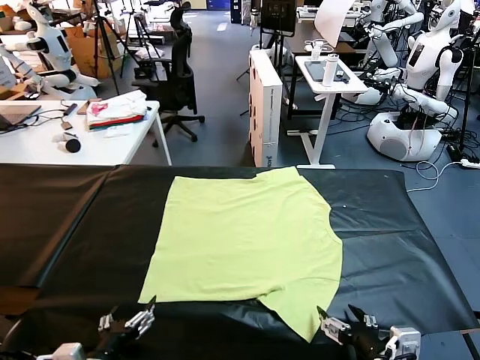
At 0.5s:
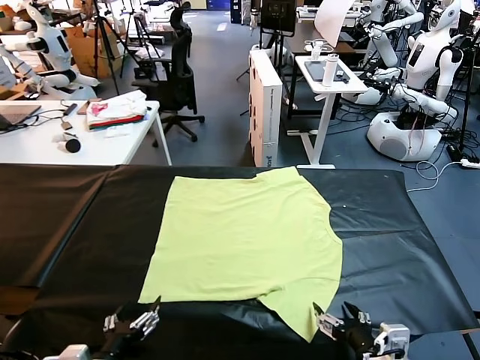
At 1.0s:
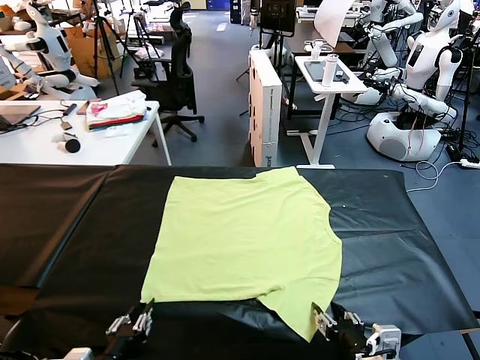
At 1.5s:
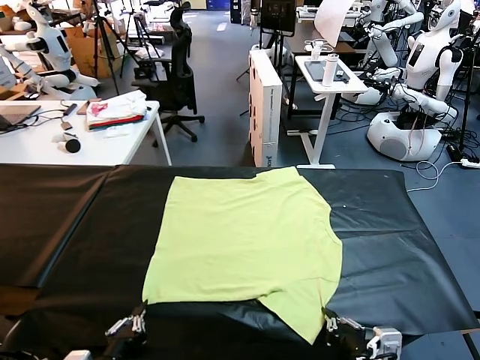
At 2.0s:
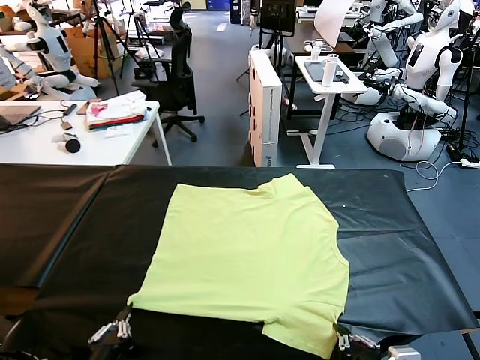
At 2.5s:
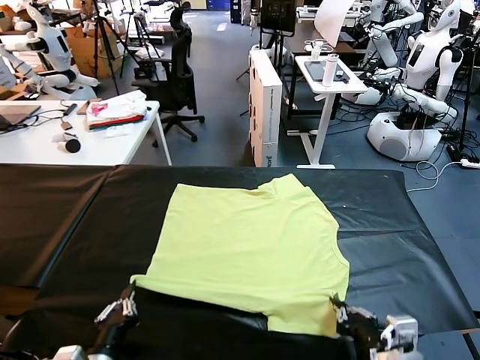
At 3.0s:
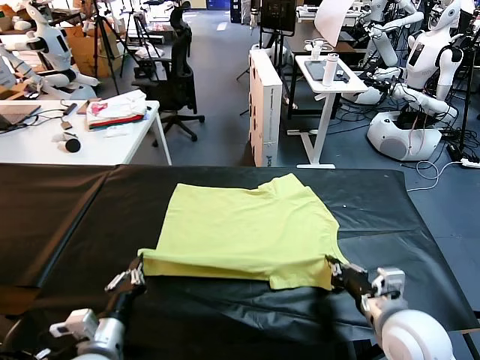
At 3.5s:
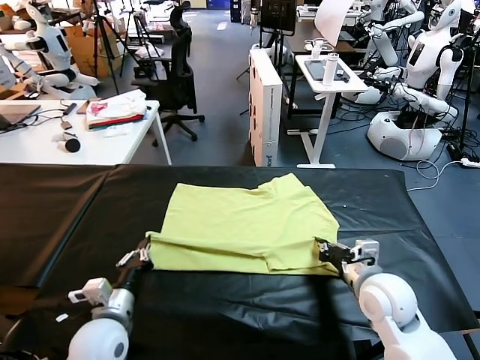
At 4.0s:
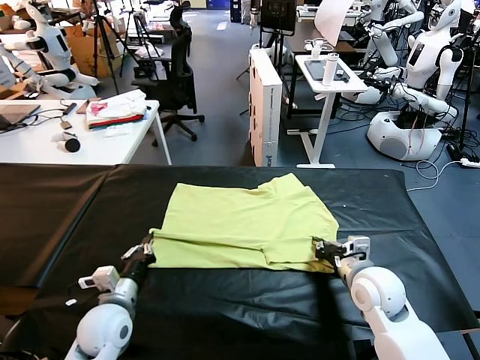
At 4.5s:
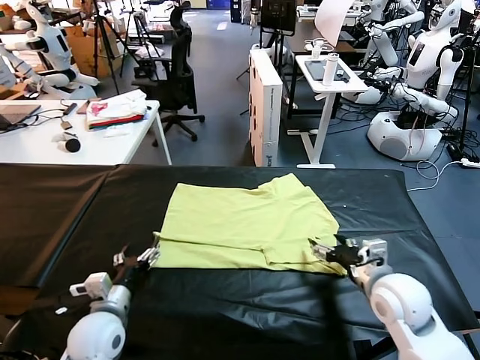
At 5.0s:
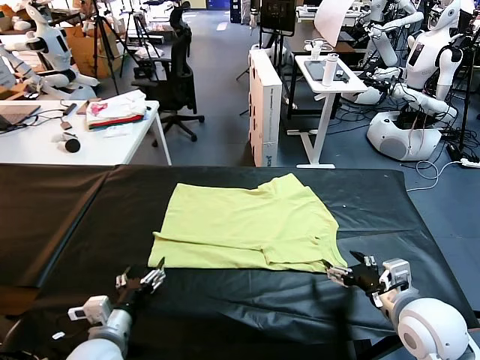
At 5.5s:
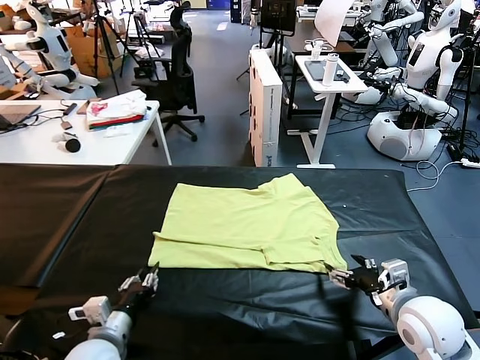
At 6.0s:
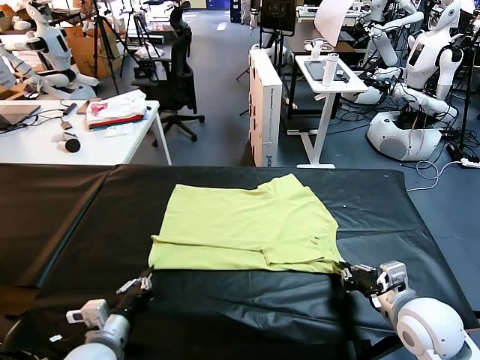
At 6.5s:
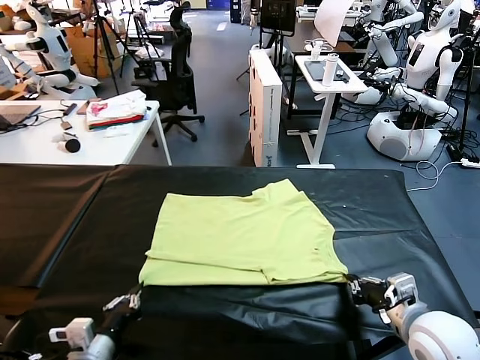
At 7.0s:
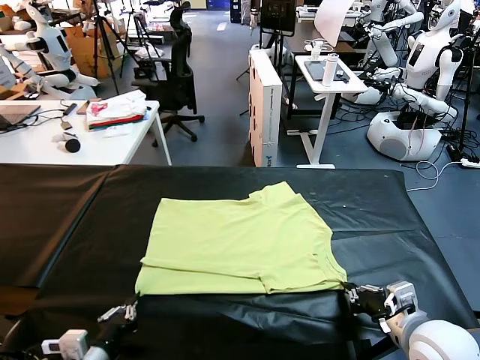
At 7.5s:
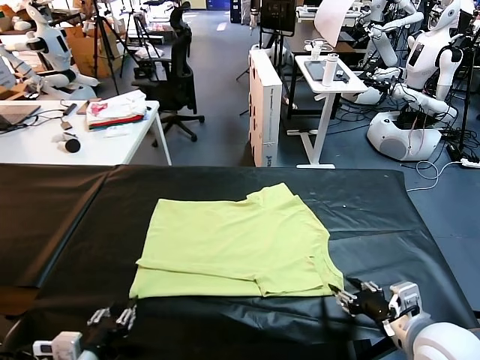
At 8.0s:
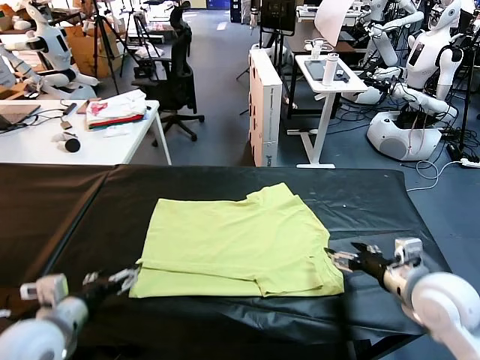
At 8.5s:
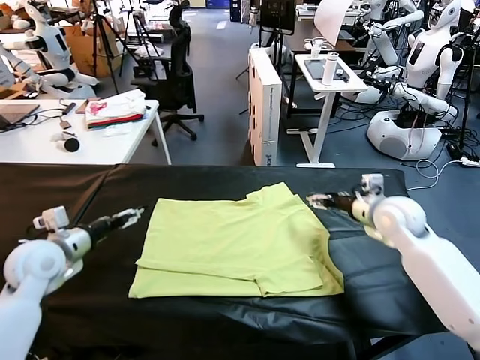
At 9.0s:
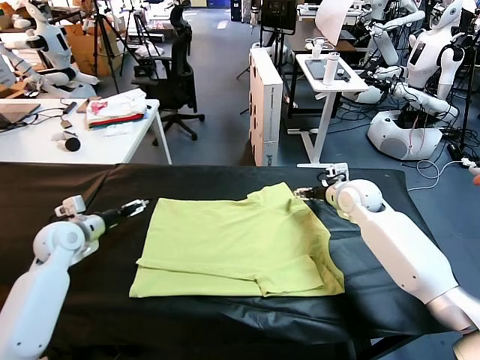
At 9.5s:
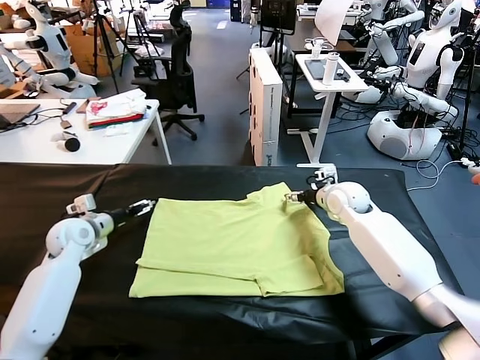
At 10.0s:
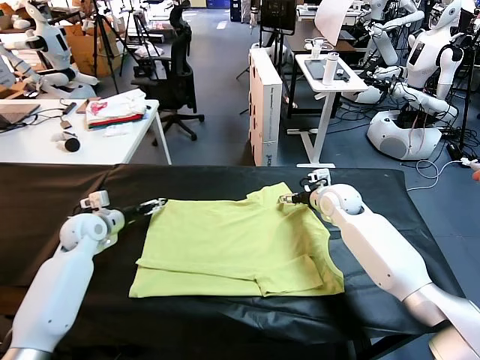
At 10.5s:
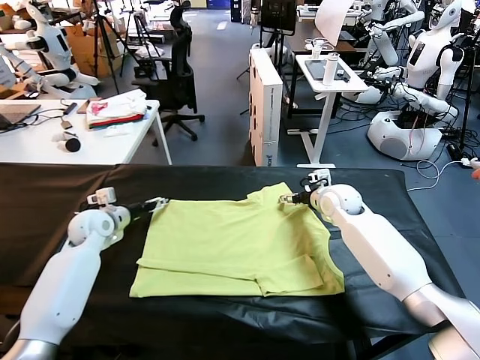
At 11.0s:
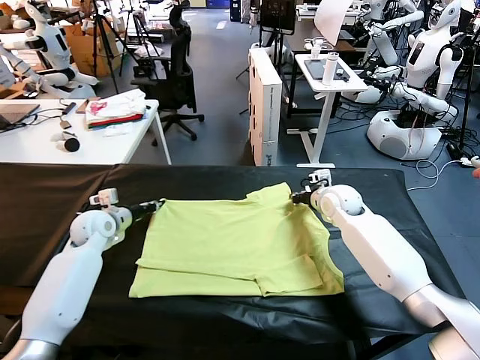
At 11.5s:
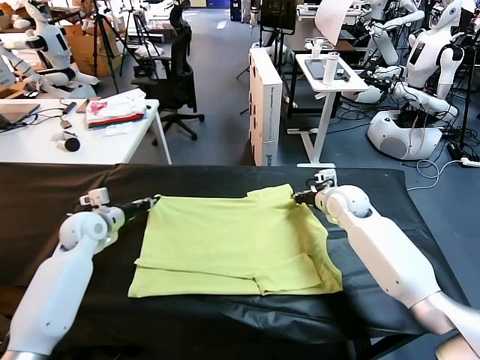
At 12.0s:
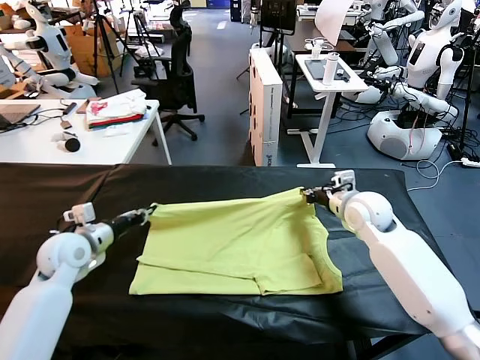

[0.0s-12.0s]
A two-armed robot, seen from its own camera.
Task of the whole recording: fold and organize the clothes.
Step, 0.0s to 1.5s: use both grippers simultaneously to clamp the lower edge of the clothing fabric.
Step, 2.0s to 4.0s: use both grippers to drag the lower edge of the fabric forward and fold it over the upper edge.
Step, 5.0s to 7.5s: Drag the clothes downward with both gripper.
Step, 8.0s to 11.5s: use both grippers simultaneously to clamp the upper edge of the clothing fabric.
2.0s to 4.0s: Both grippers move forward, roughly 20 cm. The right gripper opens.
4.0s to 6.0s: Both grippers move backward, roughly 10 cm. The right gripper closes its fingers. The left gripper opens and closes again.
6.0s to 8.0s: The left gripper moves upward and to the left, about 10 cm, and opens up, while the right gripper shifts about 10 cm forward, and opens its fingers.
8.0s to 10.0s: The right gripper moves forward and to the left, some 25 cm; the left gripper is displaced forward by some 25 cm.
10.0s to 12.0s: Both grippers travel together backward, roughly 10 cm. The left gripper closes up. The right gripper closes its fingers.

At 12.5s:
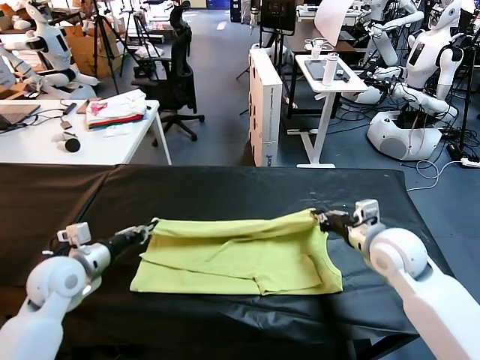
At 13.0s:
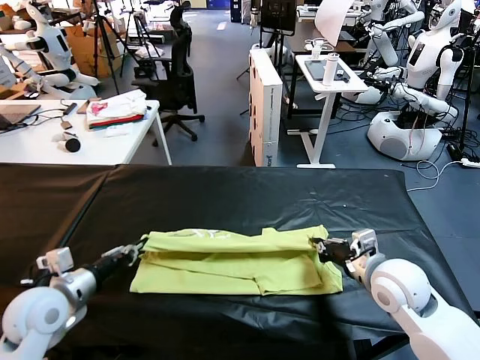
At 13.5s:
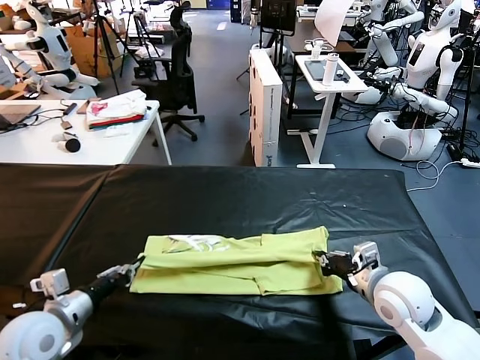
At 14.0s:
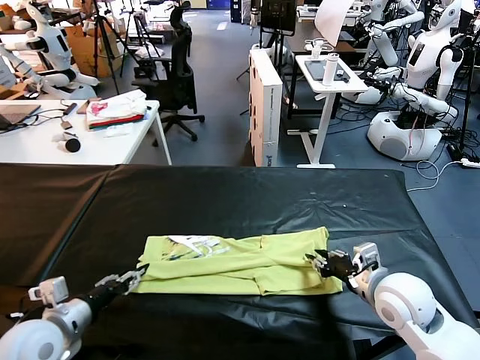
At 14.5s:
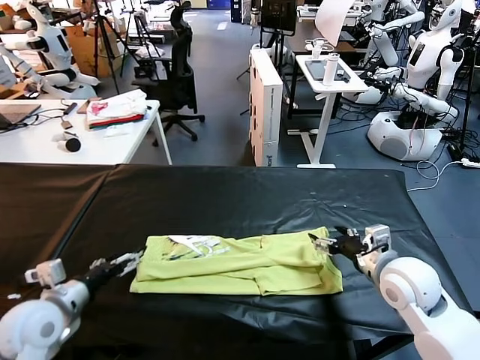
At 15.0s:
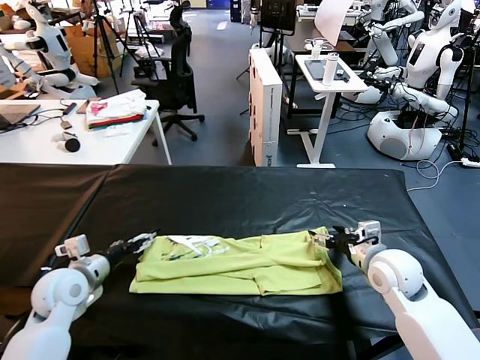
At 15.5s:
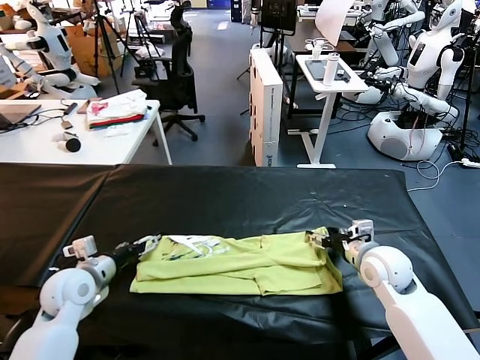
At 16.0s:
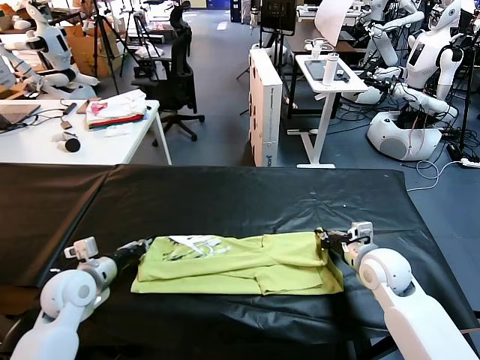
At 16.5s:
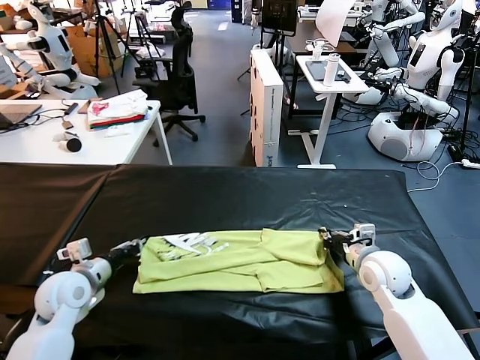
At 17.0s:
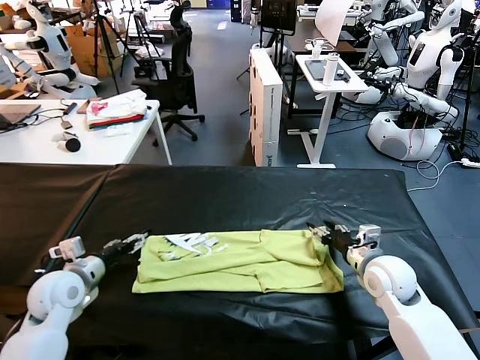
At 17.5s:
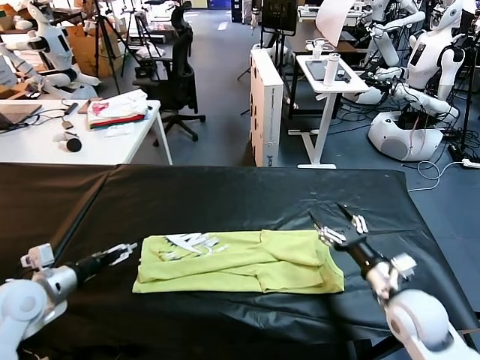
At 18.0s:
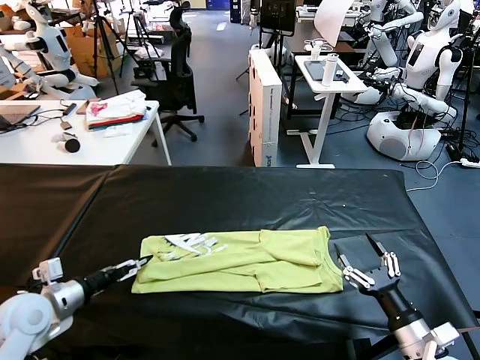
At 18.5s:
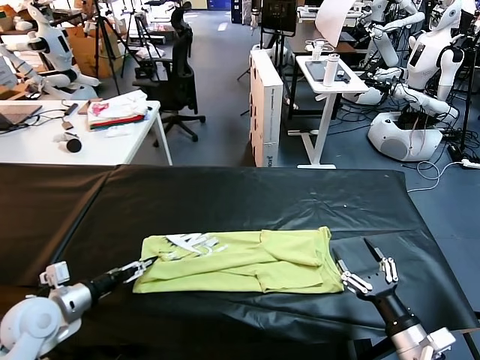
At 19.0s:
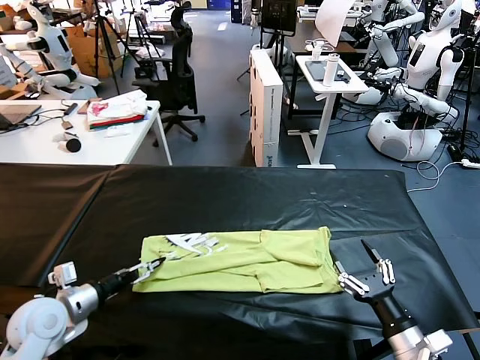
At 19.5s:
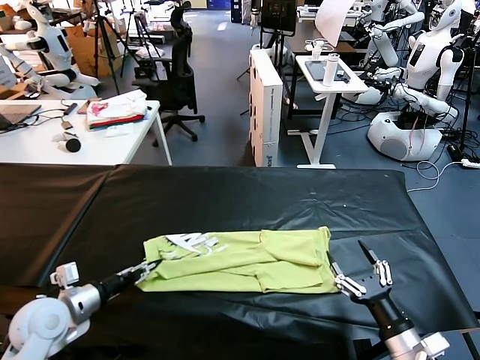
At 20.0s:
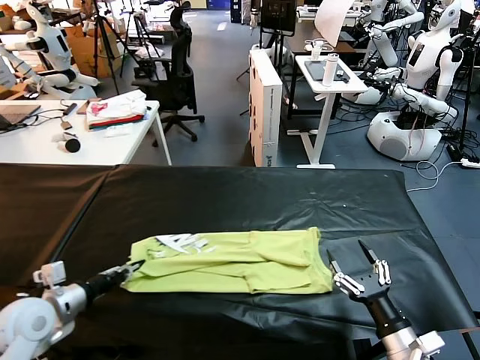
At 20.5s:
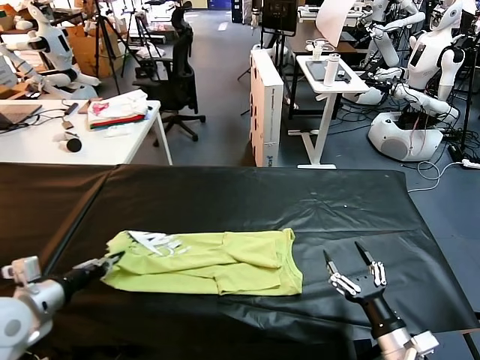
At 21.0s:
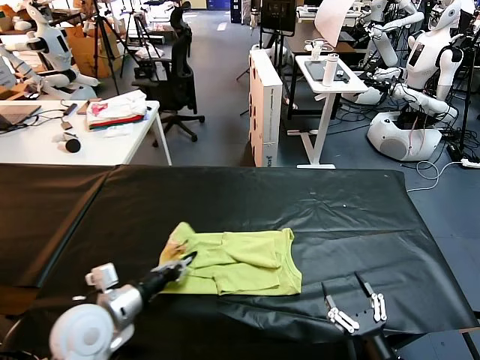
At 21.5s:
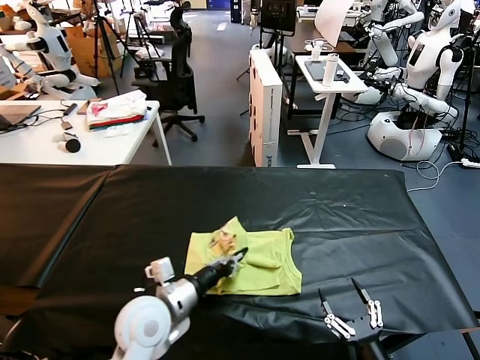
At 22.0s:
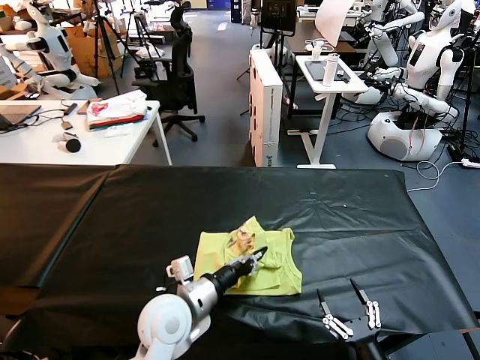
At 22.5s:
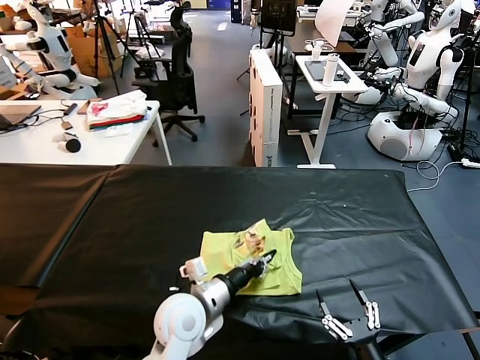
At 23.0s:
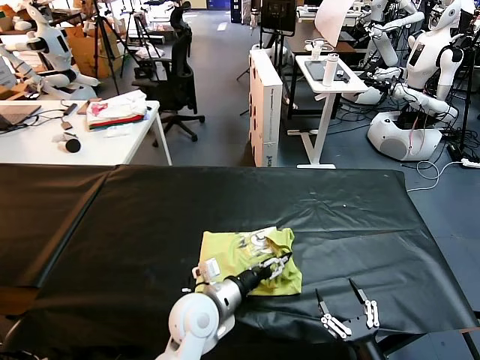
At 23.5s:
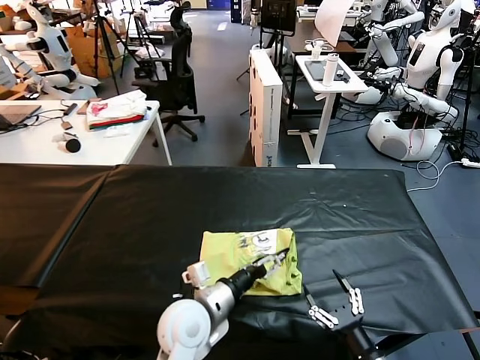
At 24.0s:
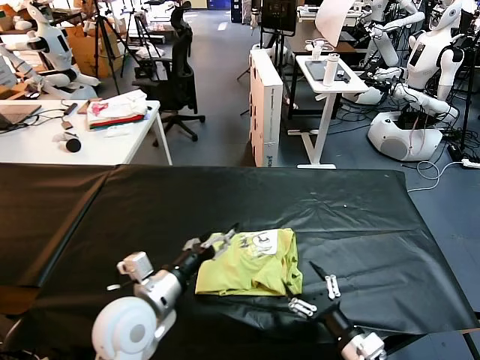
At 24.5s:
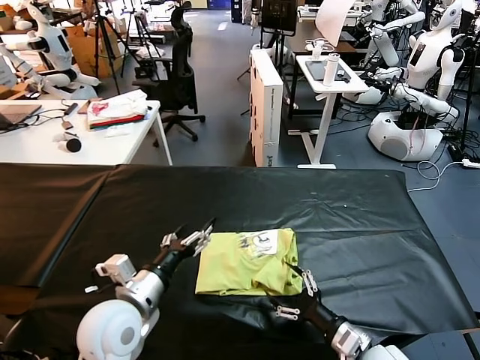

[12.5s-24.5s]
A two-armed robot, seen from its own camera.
Task of the whole recording: fold and organize the clothes.
Step, 12.5s to 14.0s: use both grippers to drag the upper edge of the fabric backward and fold it over the lower edge.
Step, 14.5s to 17.5s: use the left gripper to clamp the left edge of the fabric.
Step, 18.0s to 23.0s: use the left gripper to drag the left edge of the fabric to the left and folds it over the right edge.
12.5s to 14.5s: The left gripper shifts some 5 cm backward, and opens its fingers, while the right gripper opens up.
14.5s to 16.5s: The right gripper heads downward, covering approximately 5 cm, and closes, while the left gripper is displaced forward by approximately 5 cm, and closes up.
16.5s to 18.5s: The left gripper is displaced backward by about 5 cm, and opens up. The right gripper shifts roughly 20 cm backward, and opens up.
18.5s to 20.5s: The left gripper heads upward, covering approximately 5 cm, and closes.
20.5s to 22.5s: The right gripper shifts about 5 cm backward, while the left gripper goes some 30 cm to the right.
22.5s to 24.5s: The right gripper is displaced forward by some 10 cm, while the left gripper heads to the left and upward, covering some 10 cm, and opens.

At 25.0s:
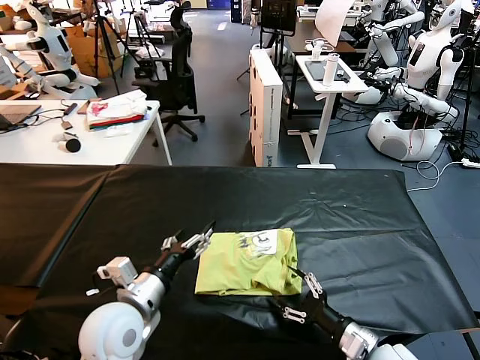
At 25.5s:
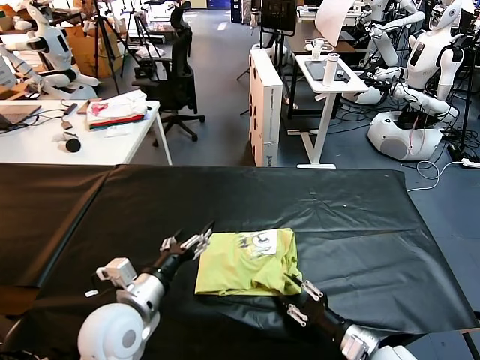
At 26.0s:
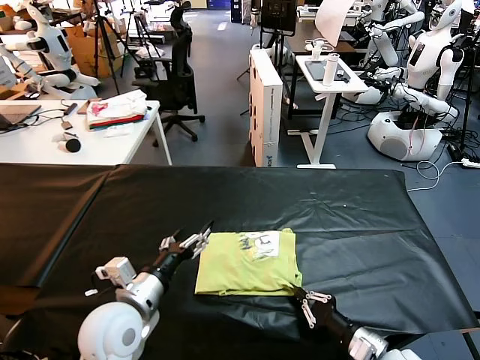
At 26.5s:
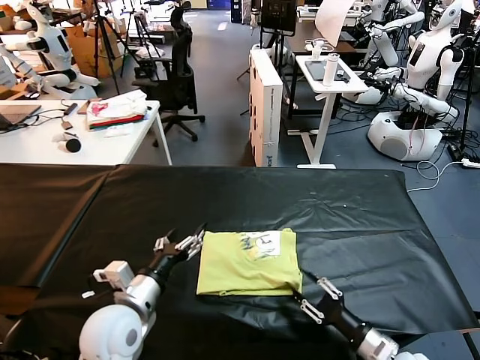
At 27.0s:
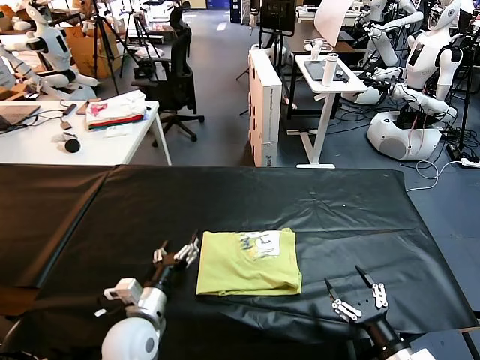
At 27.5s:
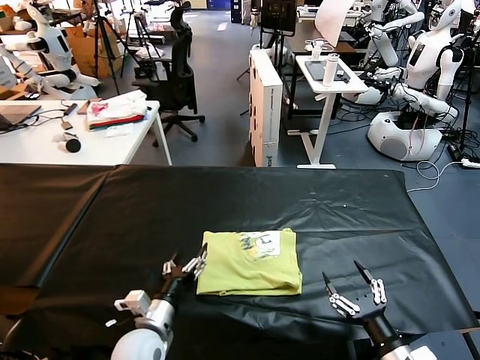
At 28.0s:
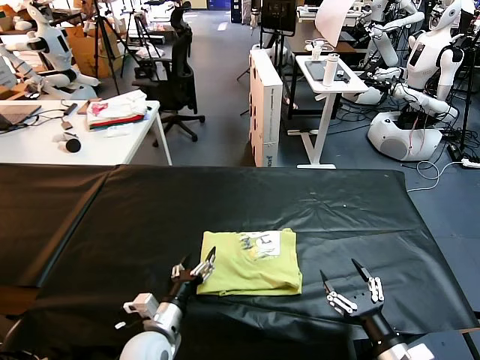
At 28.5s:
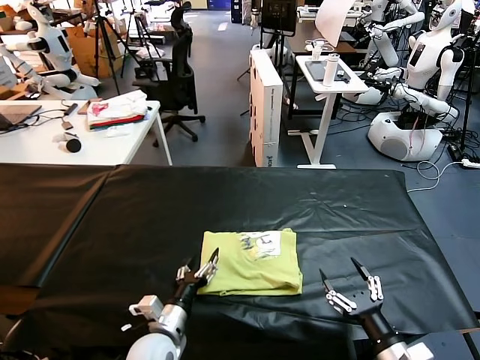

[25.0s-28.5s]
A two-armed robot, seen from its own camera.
Task of the whole recording: fold and organize the clothes.
25.0s to 27.0s: The right gripper travels backward by roughly 5 cm, and closes and opens again; the left gripper is displaced downward by approximately 10 cm.
27.0s to 28.5s: The left gripper heads downward, covering some 5 cm.
